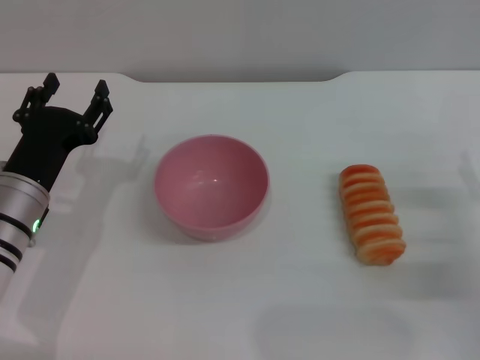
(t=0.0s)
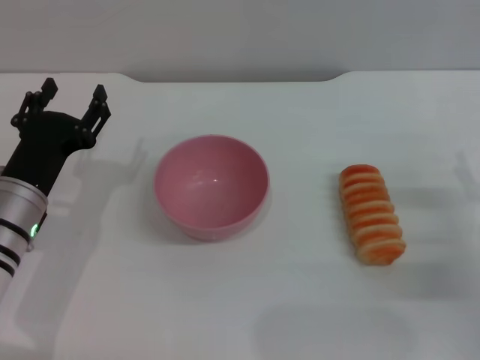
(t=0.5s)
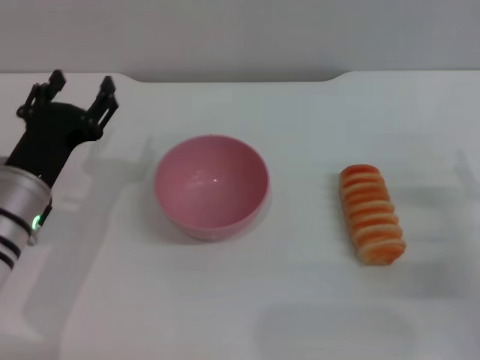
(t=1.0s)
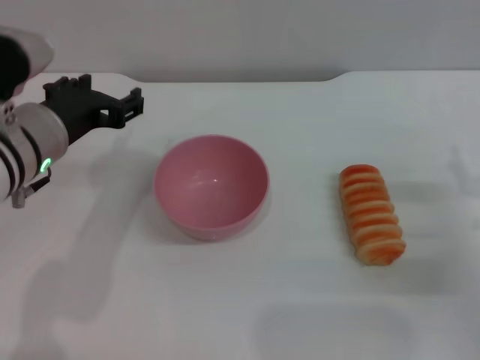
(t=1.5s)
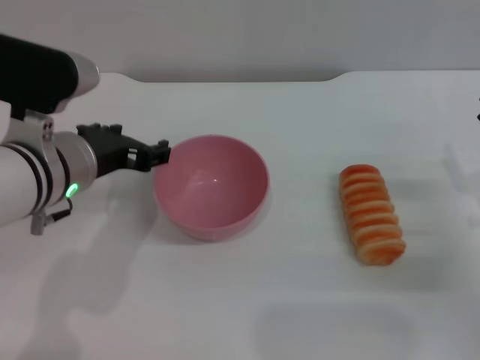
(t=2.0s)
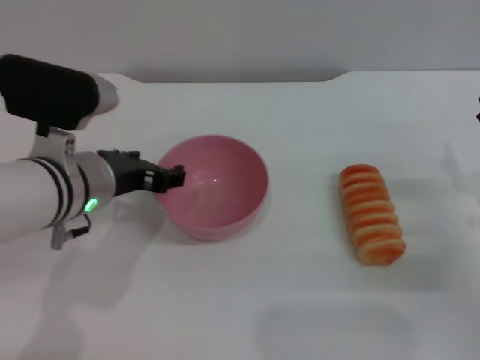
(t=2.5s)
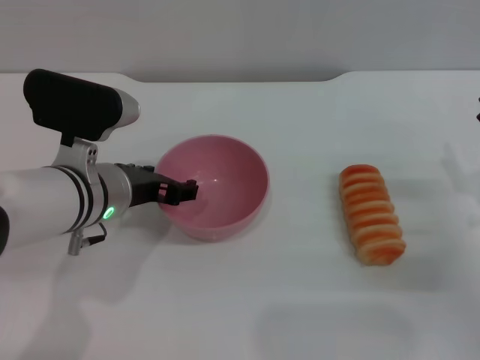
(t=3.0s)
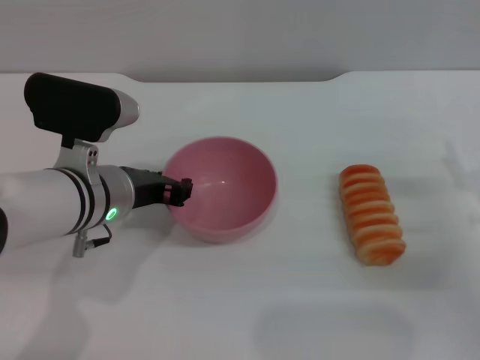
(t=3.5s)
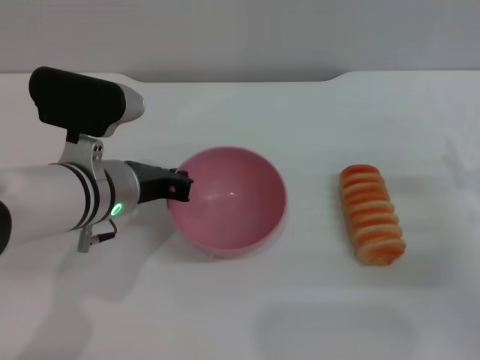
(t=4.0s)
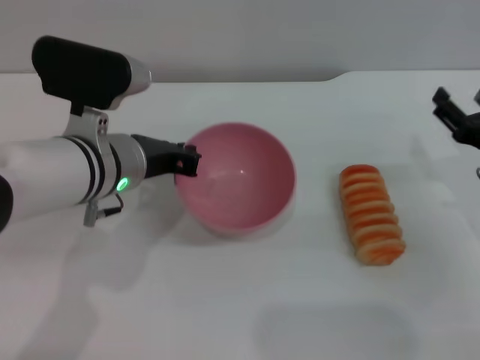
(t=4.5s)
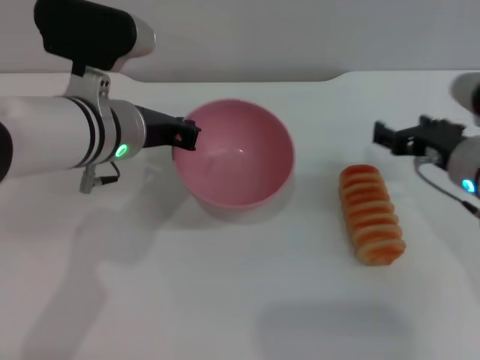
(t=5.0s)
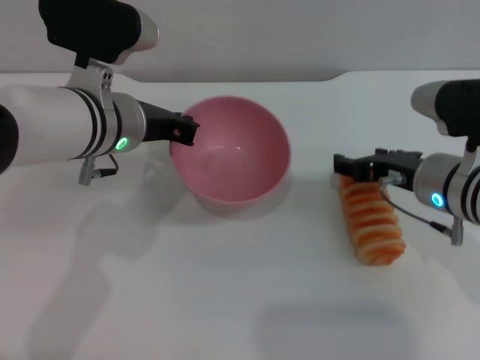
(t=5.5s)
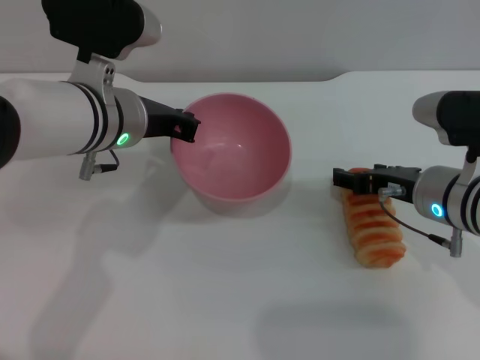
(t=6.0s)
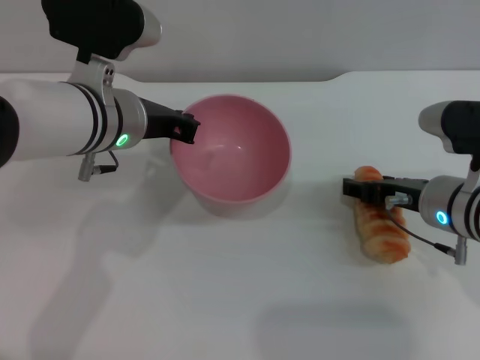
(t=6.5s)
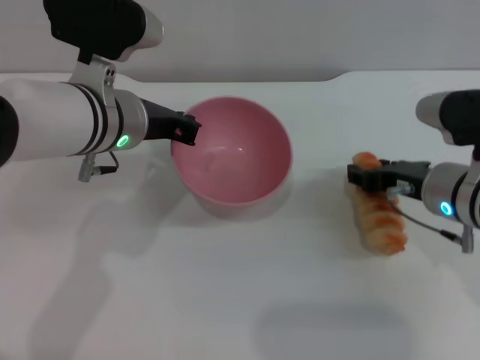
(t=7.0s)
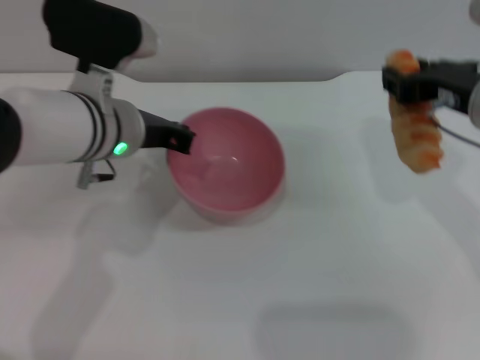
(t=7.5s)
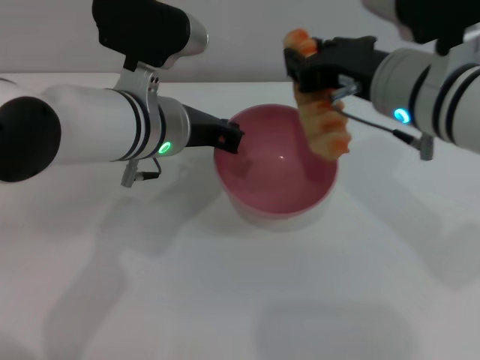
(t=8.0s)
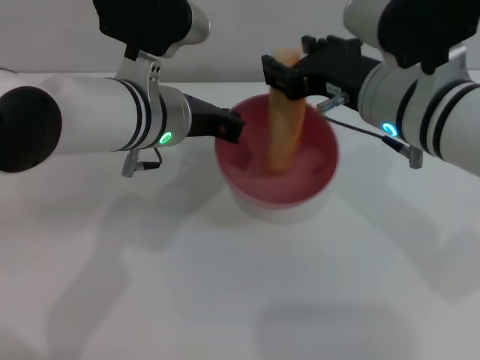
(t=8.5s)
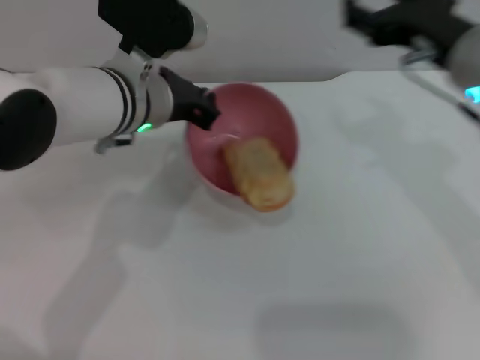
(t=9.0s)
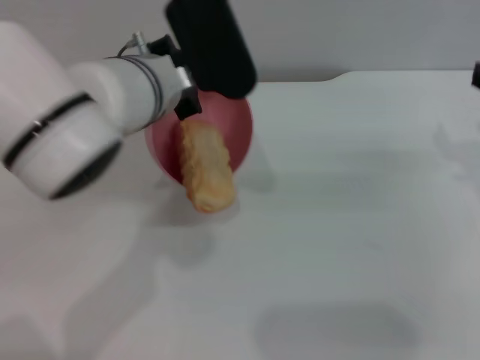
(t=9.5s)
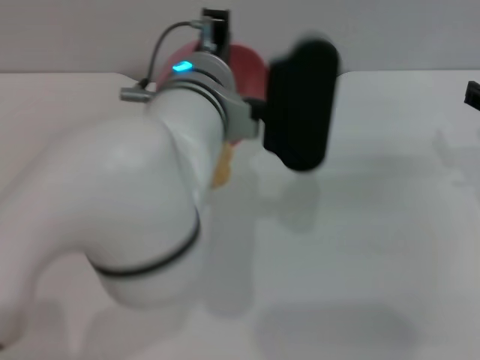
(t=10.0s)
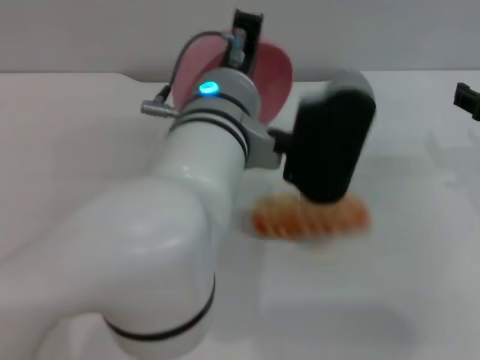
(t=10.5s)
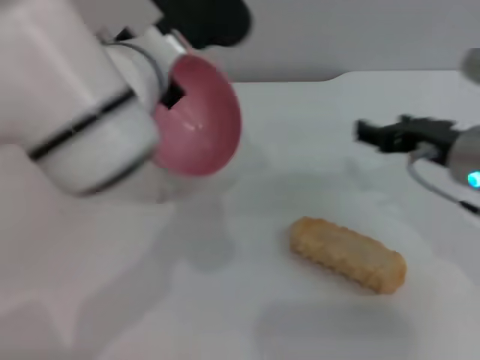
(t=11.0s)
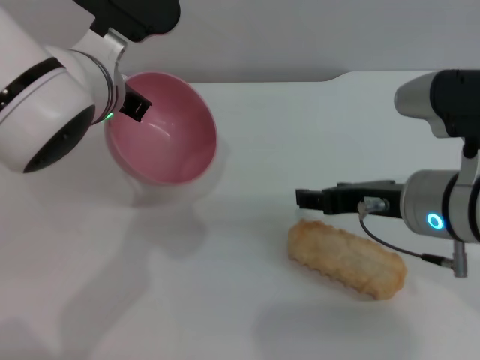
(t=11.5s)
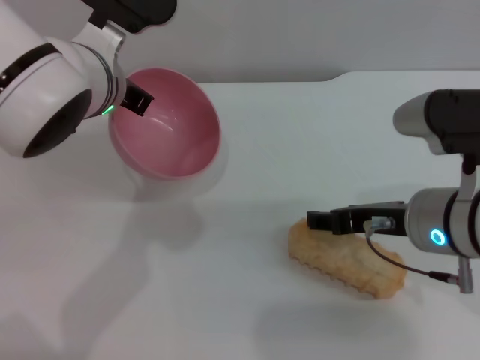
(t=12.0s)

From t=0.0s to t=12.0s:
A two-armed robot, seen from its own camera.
Task of the whole recording: put the bread into the pink bowl and pour it out repeatedly.
Step, from t=0.0s to t=5.0s: Pick up the bowl with the left gripper.
Step, from t=5.5s to t=7.0s: Pick up the bread with the right gripper.
Step, from t=7.5s to t=8.5s: Place the bread into the bowl.
Step, from t=9.0s to t=10.5s: Pour the bread out of the bowl.
From t=0.0s to t=2.0s: The left gripper heads upward and to the right, covering some 10 cm.
From t=2.0s to t=4.0s: The left gripper closes up.
From t=4.0s to t=6.0s: The left gripper shifts about 5 cm upward; the right gripper heads to the left, covering roughly 10 cm.
From t=6.0s to t=8.0s: The right gripper goes roughly 15 cm upward and to the left, and closes its fingers.
From t=8.0s to t=10.0s: The left gripper travels to the right by roughly 5 cm. Meanwhile the right gripper shifts approximately 15 cm to the right, and opens up.
From t=10.0s to t=12.0s: Both grippers travel together to the left, approximately 10 cm.

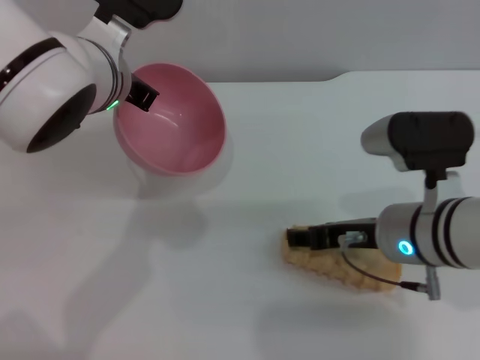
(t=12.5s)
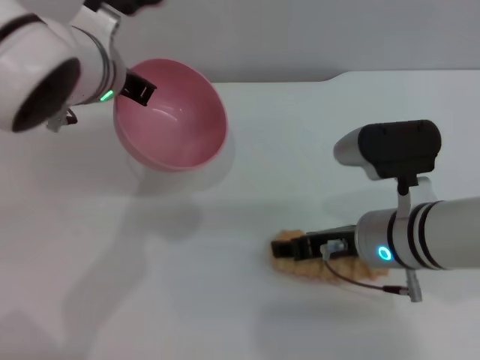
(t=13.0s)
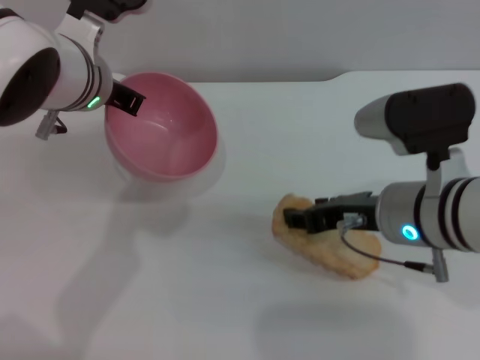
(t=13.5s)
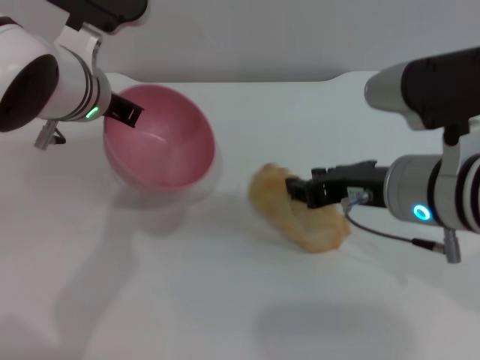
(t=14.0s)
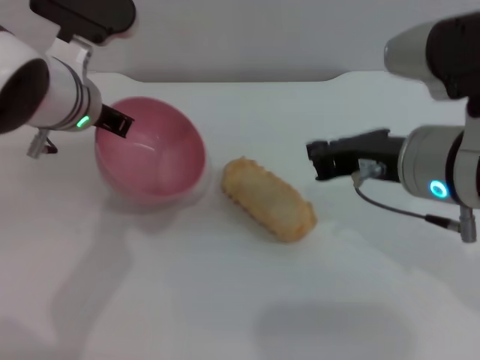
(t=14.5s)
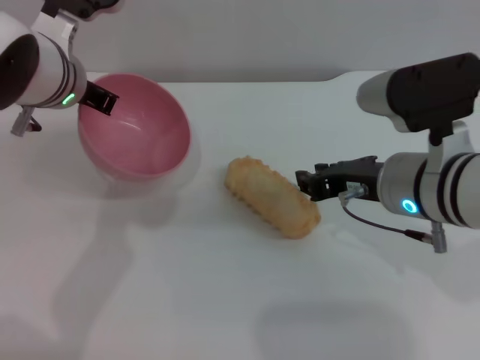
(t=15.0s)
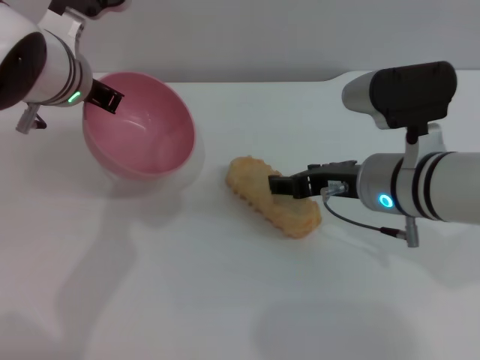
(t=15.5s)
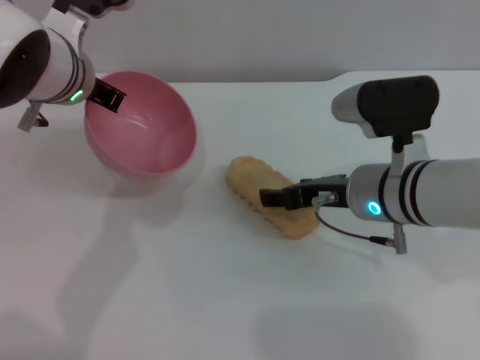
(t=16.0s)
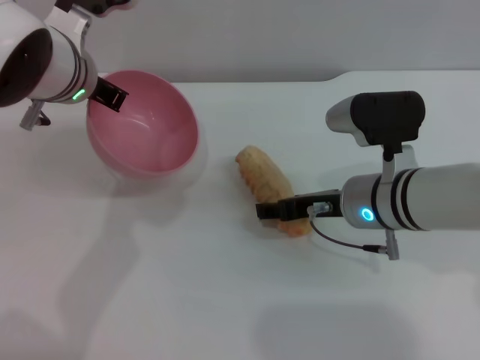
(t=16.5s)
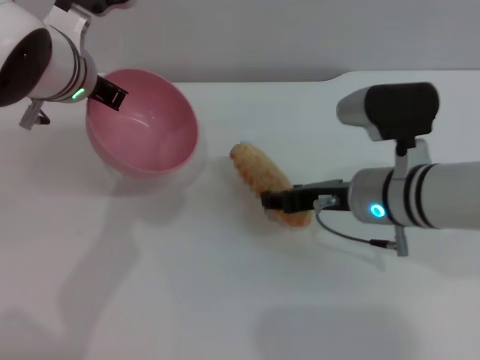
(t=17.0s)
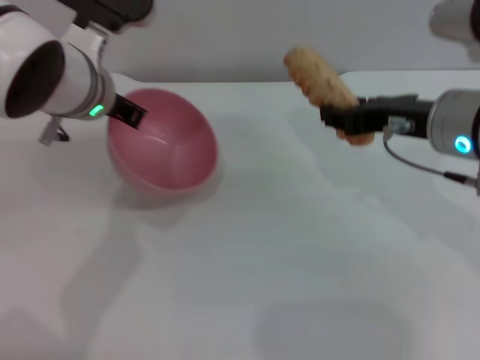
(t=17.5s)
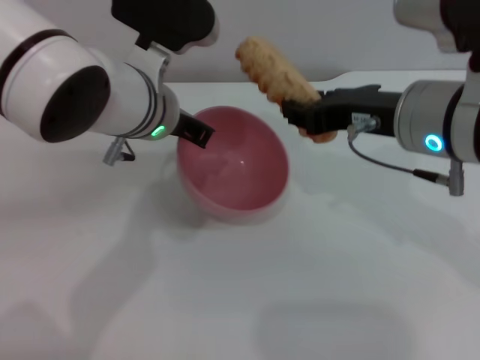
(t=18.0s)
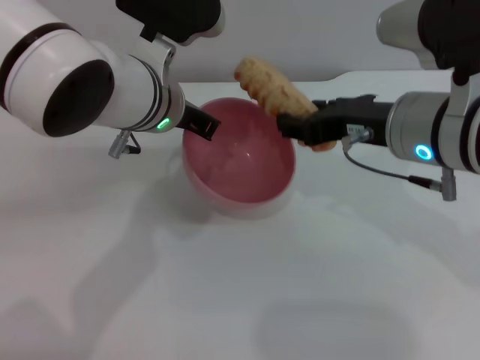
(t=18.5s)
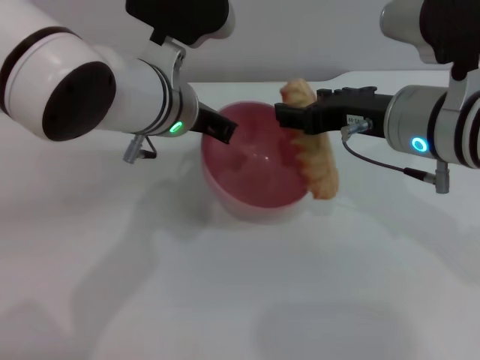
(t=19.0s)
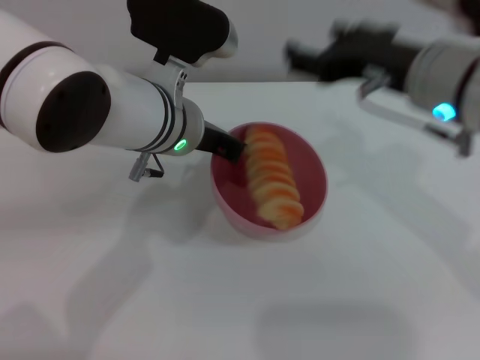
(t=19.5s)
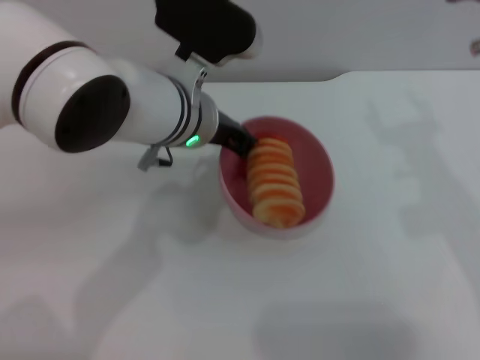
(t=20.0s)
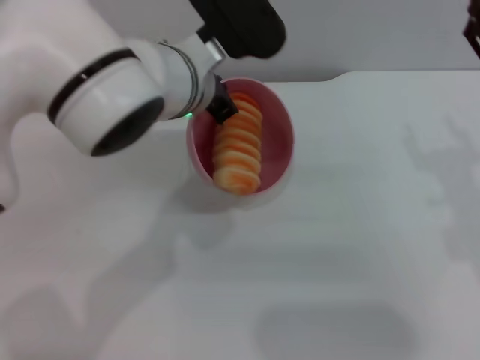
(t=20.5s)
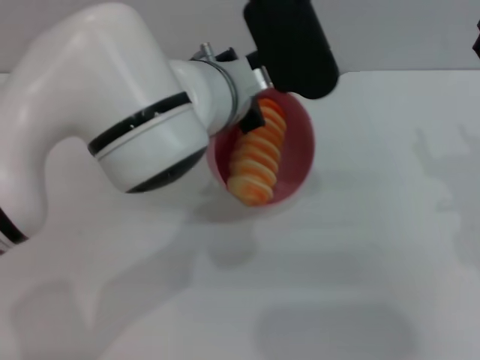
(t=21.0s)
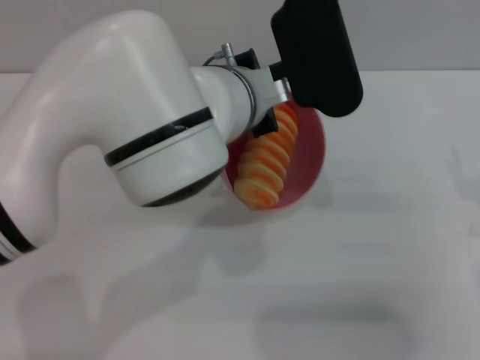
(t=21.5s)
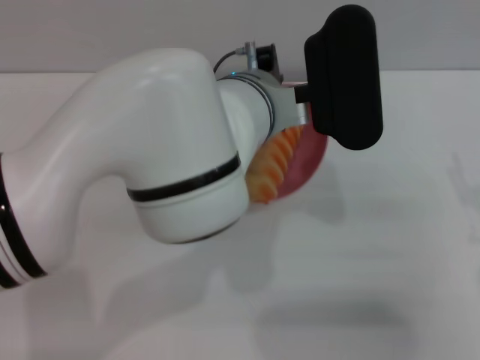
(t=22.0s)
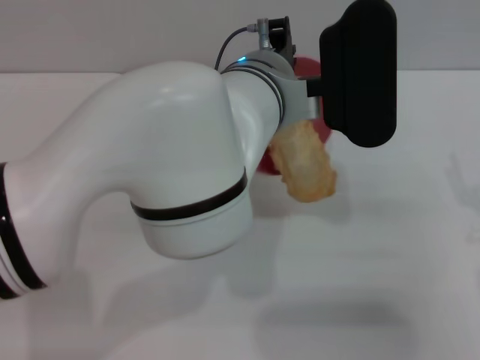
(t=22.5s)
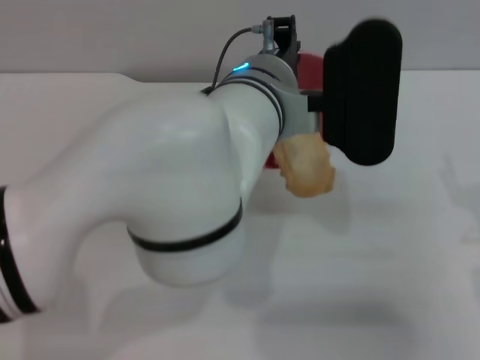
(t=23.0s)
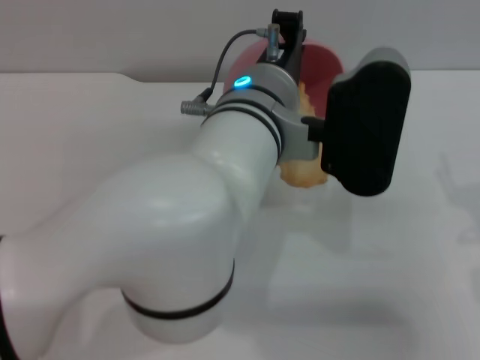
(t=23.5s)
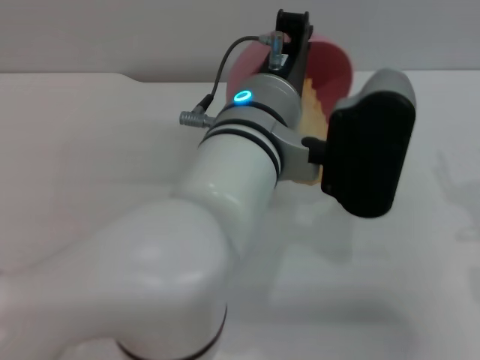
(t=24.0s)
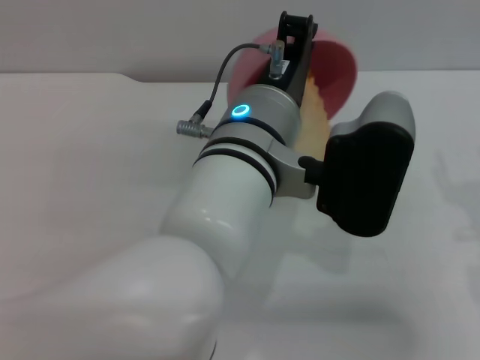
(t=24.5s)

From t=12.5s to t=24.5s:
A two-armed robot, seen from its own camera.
Task of the whole recording: put the bread into the pink bowl and pour it out repeatedly.
Step, from t=12.5s to t=17.0s: Pick up the bread with the right gripper.
Step, from t=17.5s to t=19.0s: Place the bread into the bowl.
From t=12.5s to t=14.5s: The right gripper heads upward, covering about 10 cm, and closes.
From t=14.5s to t=16.5s: The right gripper shifts some 15 cm downward and forward, and opens.
From t=16.5s to t=18.5s: The right gripper is displaced upward by about 10 cm, and closes. The left gripper shifts roughly 5 cm to the right.
From t=18.5s to t=20.5s: The right gripper moves to the right and backward, roughly 10 cm, and opens.
From t=20.5s to t=22.5s: The left gripper heads to the right, covering roughly 5 cm. The right gripper changes place by about 5 cm.
From t=22.5s to t=24.5s: The left gripper is displaced backward by approximately 5 cm.

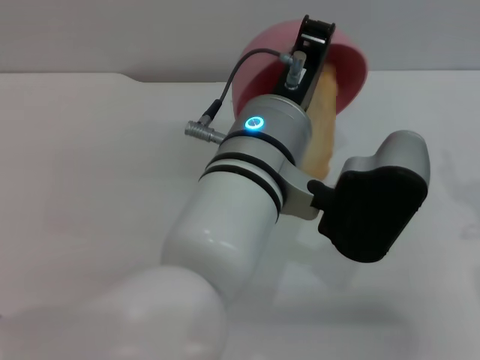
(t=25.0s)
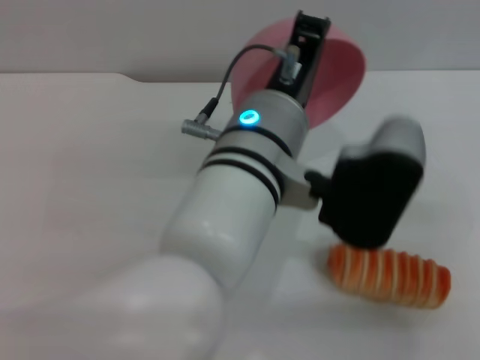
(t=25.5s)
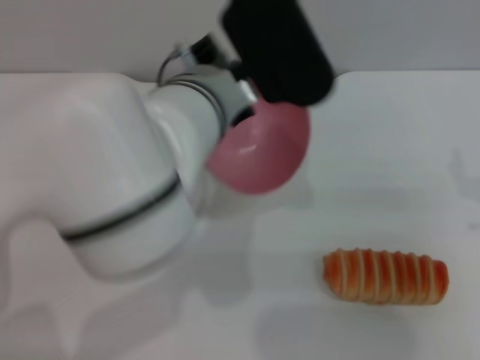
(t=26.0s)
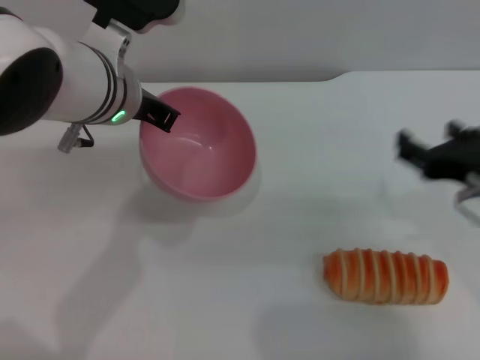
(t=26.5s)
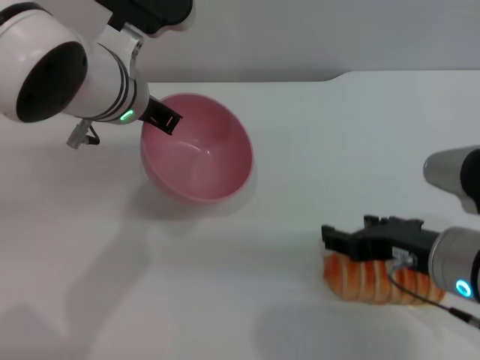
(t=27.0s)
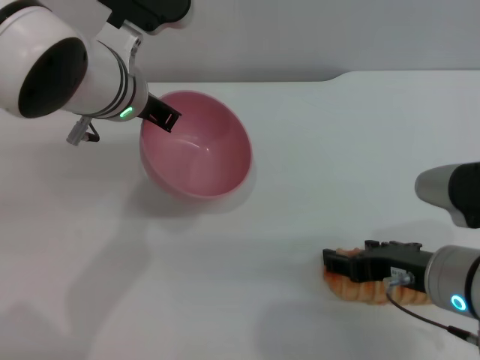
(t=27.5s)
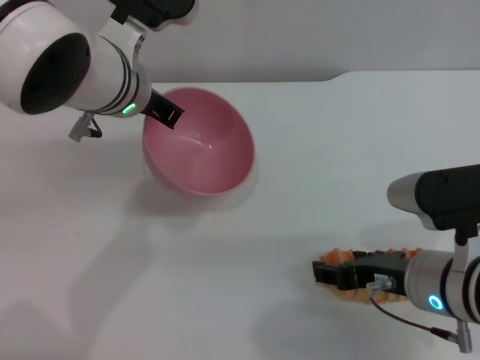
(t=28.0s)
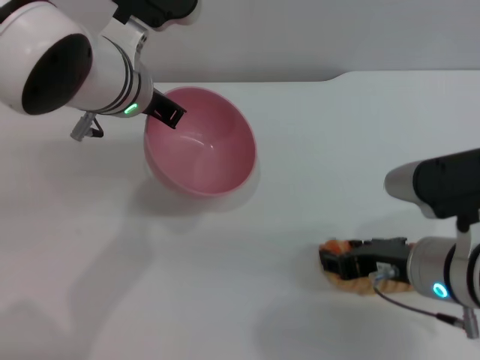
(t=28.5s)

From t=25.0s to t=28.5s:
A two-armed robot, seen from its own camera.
Task of the whole recording: put the bread into the pink bowl and pour it out repeatedly.
From t=25.0s to t=27.0s: The left gripper moves to the left and forward, some 15 cm, while the right gripper travels to the left by roughly 10 cm.
From t=27.0s to t=28.5s: There are only small adjustments of the grippers.
